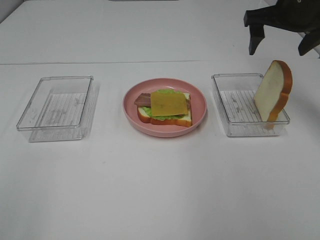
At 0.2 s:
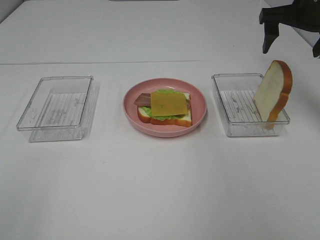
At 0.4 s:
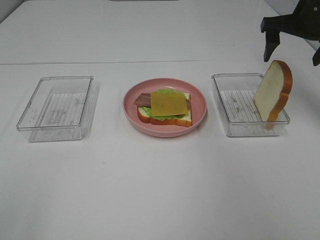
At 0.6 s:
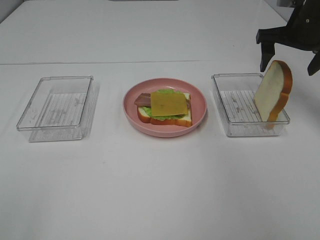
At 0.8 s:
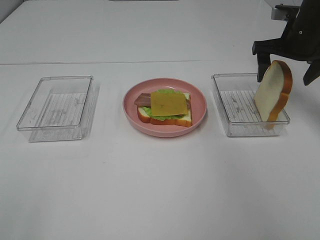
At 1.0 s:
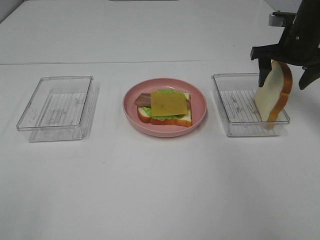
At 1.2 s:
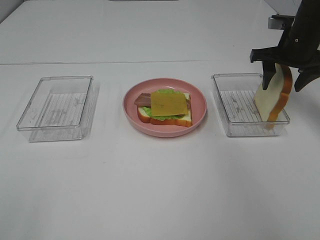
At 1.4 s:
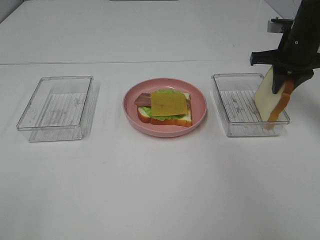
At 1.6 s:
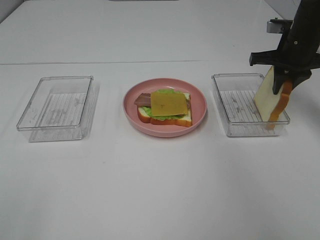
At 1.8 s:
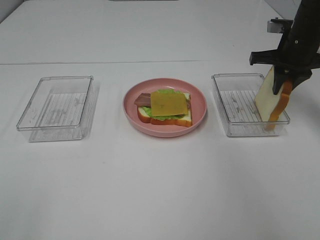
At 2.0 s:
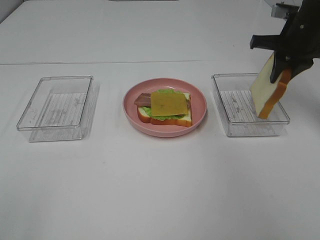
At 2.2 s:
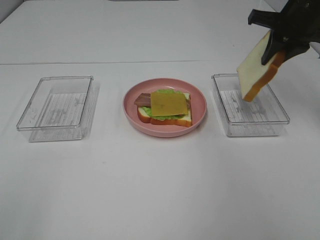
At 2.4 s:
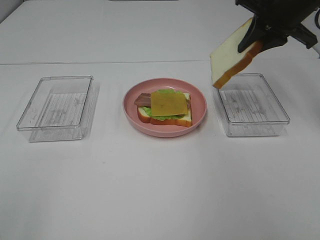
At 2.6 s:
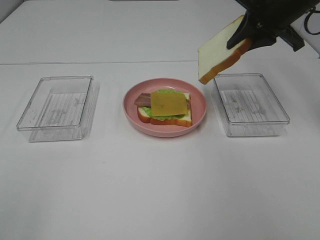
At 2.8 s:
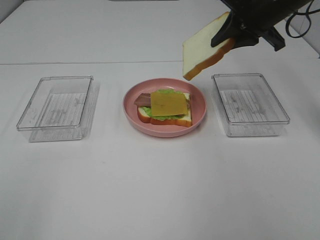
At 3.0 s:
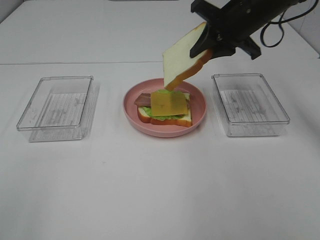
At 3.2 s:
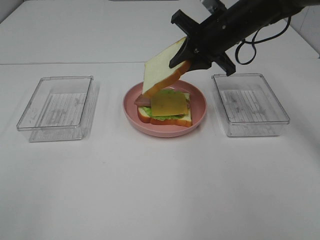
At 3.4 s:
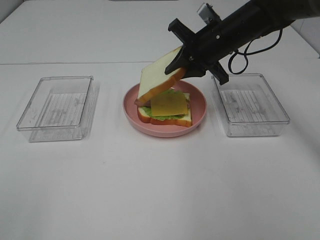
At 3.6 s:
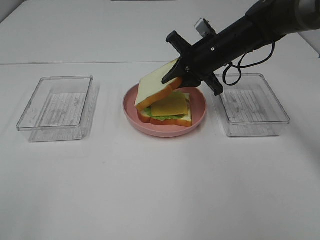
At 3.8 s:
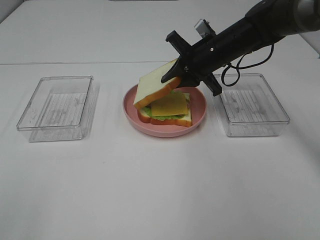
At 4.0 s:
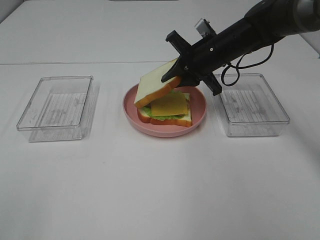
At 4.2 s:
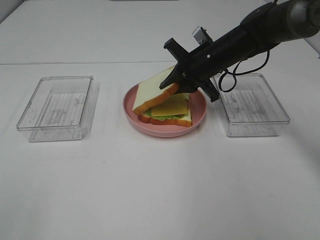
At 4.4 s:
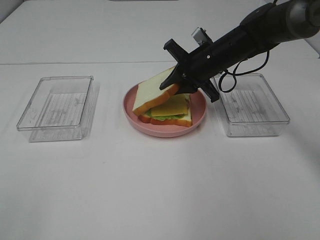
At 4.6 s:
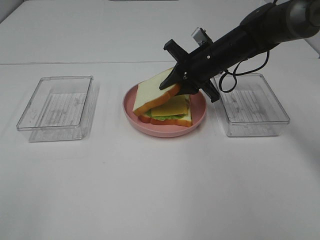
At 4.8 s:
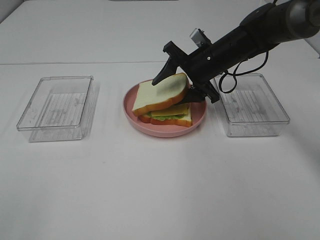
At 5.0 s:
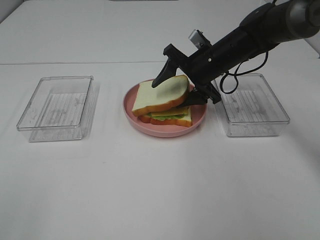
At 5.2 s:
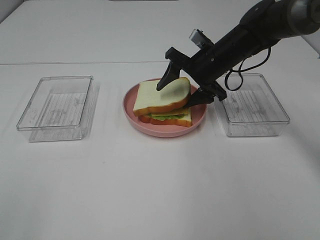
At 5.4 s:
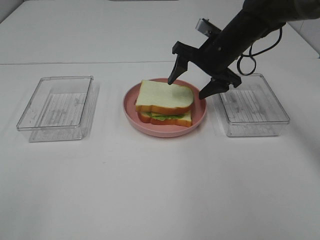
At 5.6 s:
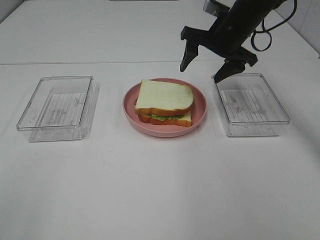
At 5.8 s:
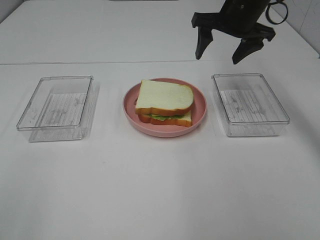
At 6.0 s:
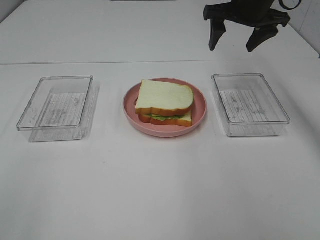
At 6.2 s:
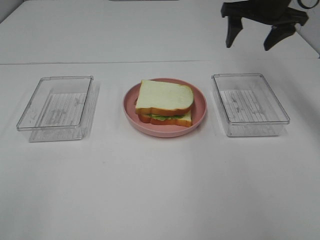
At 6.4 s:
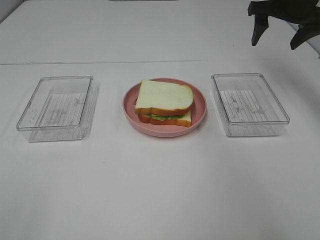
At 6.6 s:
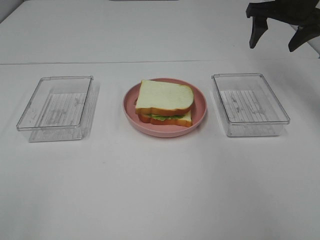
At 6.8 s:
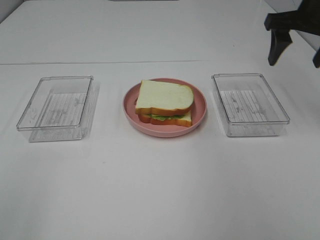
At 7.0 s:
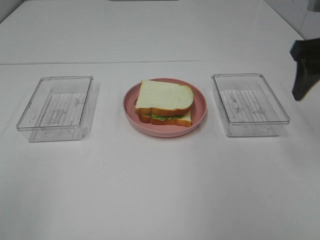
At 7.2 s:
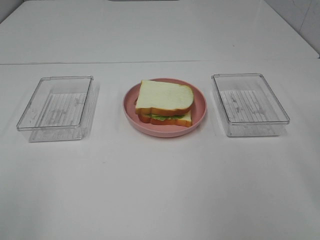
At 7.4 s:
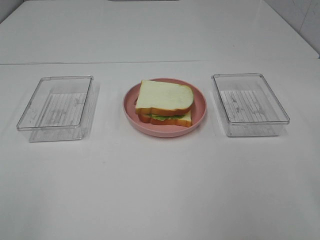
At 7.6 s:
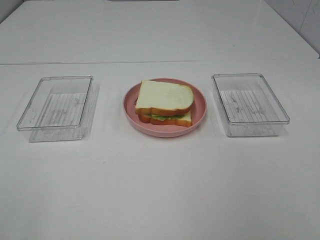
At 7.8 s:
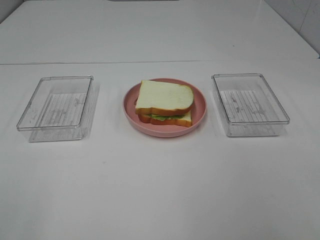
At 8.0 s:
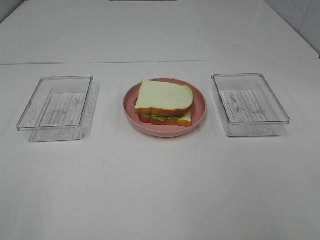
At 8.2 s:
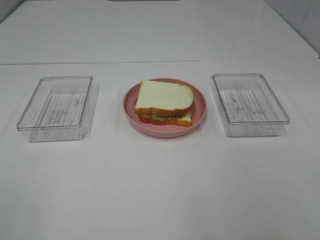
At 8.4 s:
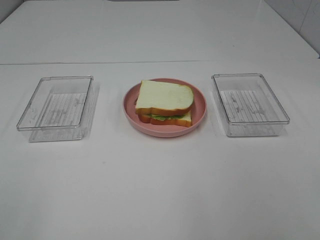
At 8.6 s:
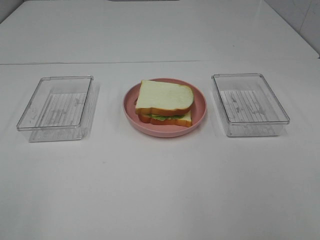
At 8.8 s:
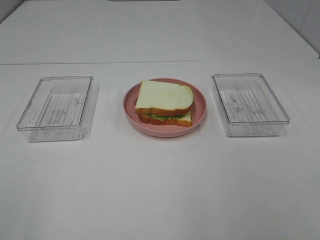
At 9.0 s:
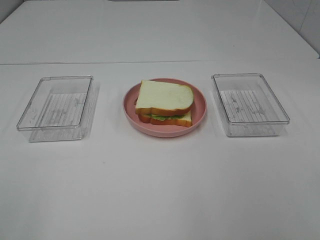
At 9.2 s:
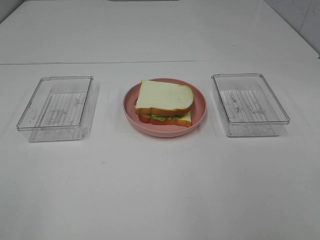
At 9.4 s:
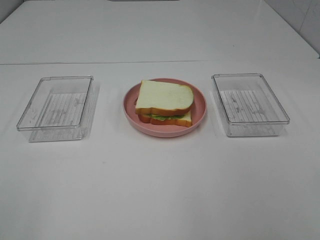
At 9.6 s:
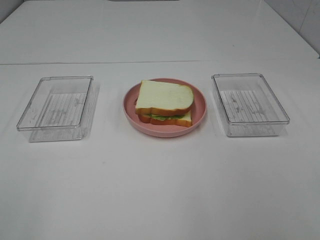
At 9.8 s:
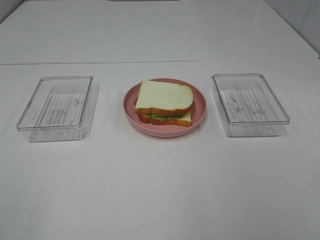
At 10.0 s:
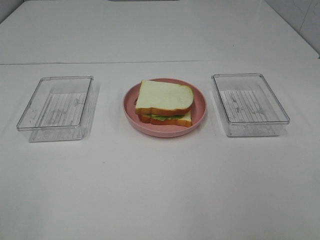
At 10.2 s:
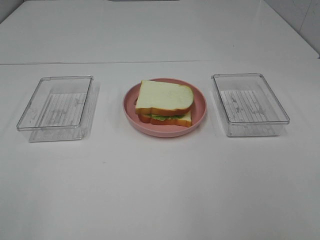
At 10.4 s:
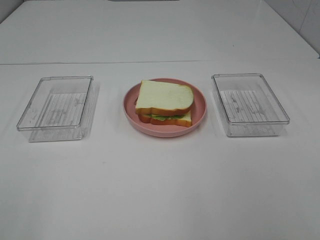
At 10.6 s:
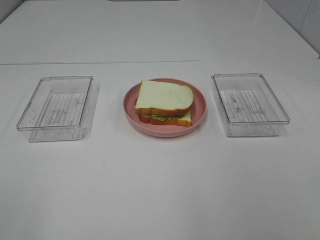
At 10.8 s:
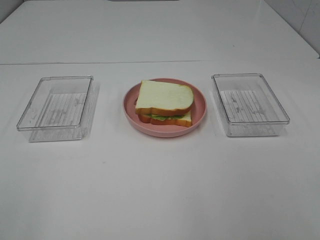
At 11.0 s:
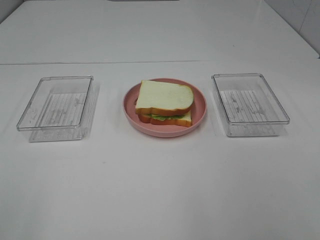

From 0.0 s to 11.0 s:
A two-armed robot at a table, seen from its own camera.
Task of the whole recording: Make sandwiches.
Step, from 0.0 s to 1.8 s: Right hand:grab the bread slice.
Step, from 2.0 s to 5.4 s: Right hand:place the bread slice on the cheese slice.
From 0.0 s to 1.6 s: The right gripper is displaced downward by about 10 cm, and closes up.
From 1.6 s to 3.2 s: The right gripper shifts roughly 15 cm to the left.
From 3.2 s to 4.8 s: The right gripper heads downward, covering approximately 5 cm, and opens up.
From 4.8 s to 6.2 s: The right gripper moves upward and to the right, some 15 cm.
From 6.2 s to 7.8 s: The right gripper travels backward by roughly 40 cm.
From 9.4 s to 11.0 s: Both grippers stay about where they are.

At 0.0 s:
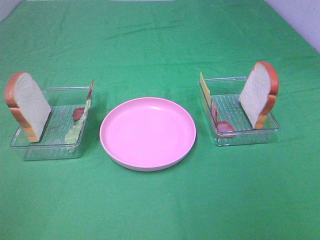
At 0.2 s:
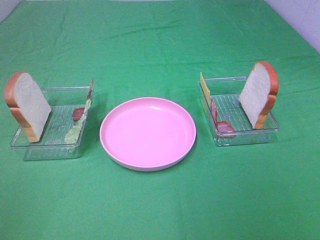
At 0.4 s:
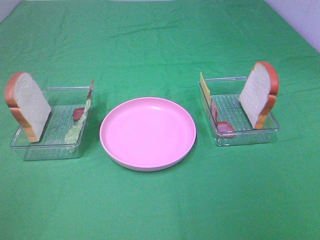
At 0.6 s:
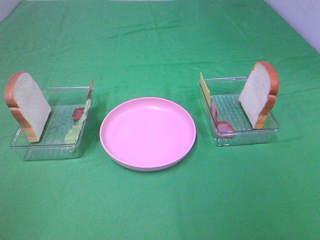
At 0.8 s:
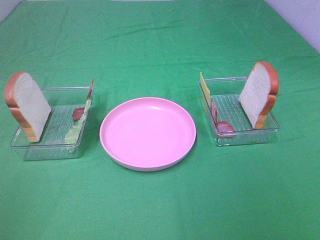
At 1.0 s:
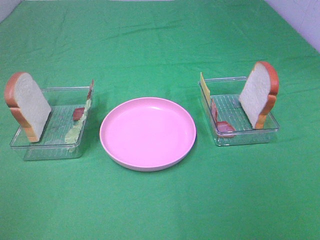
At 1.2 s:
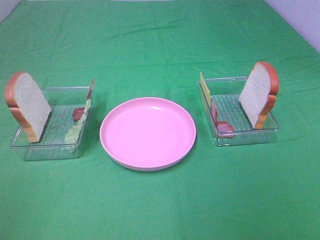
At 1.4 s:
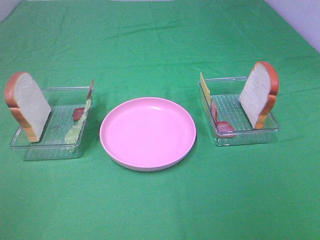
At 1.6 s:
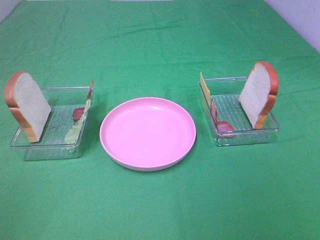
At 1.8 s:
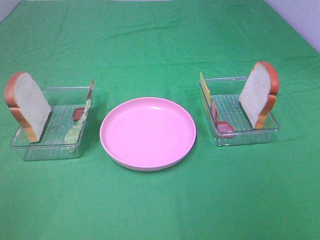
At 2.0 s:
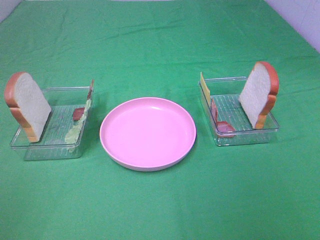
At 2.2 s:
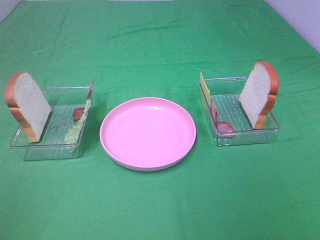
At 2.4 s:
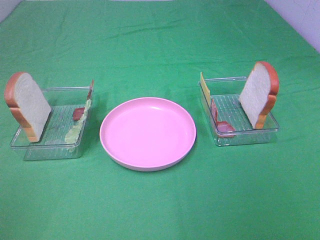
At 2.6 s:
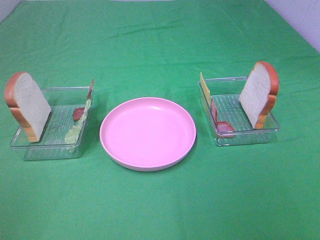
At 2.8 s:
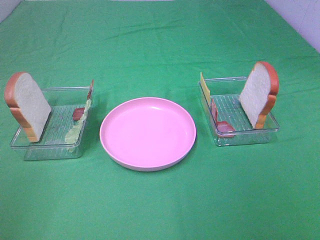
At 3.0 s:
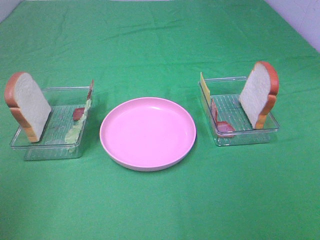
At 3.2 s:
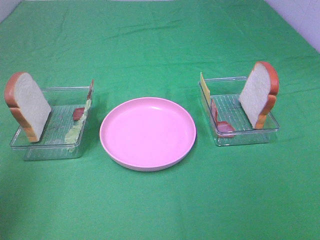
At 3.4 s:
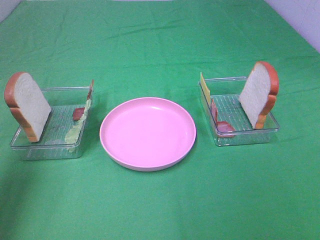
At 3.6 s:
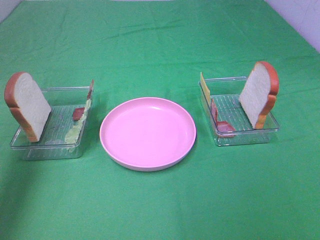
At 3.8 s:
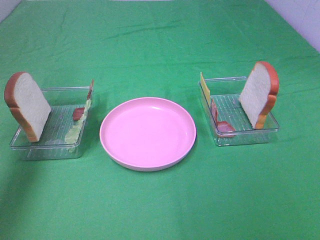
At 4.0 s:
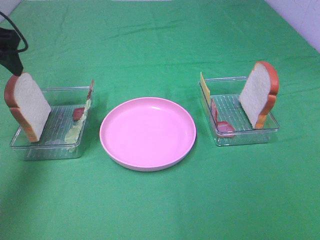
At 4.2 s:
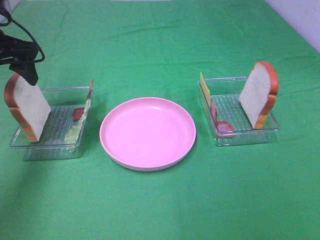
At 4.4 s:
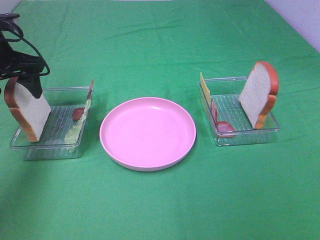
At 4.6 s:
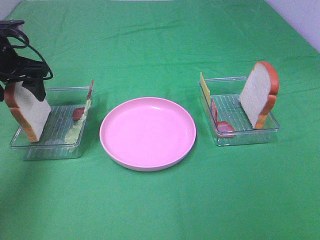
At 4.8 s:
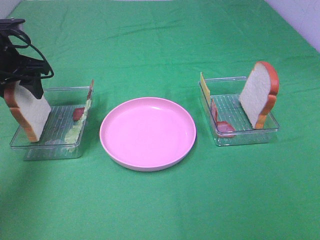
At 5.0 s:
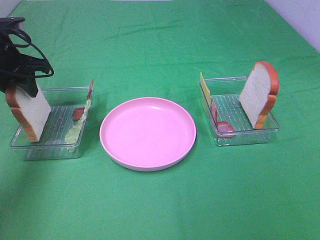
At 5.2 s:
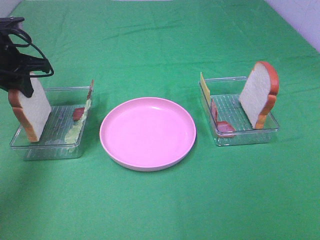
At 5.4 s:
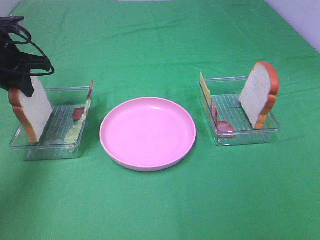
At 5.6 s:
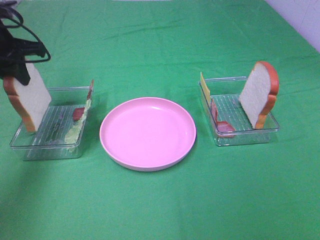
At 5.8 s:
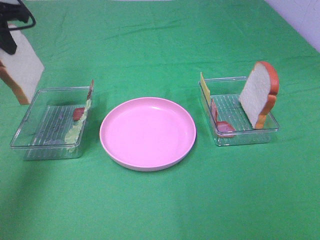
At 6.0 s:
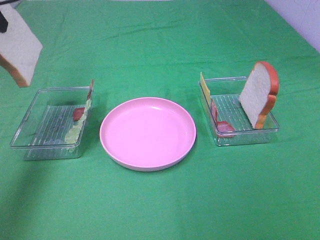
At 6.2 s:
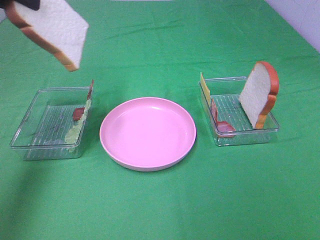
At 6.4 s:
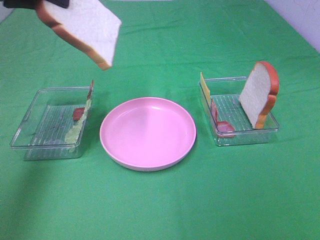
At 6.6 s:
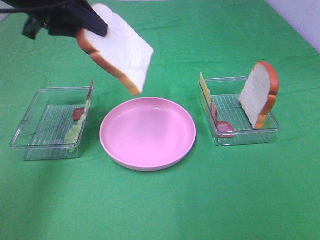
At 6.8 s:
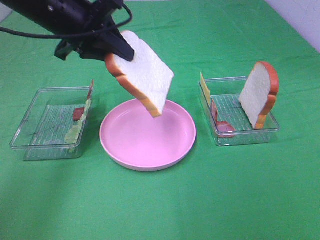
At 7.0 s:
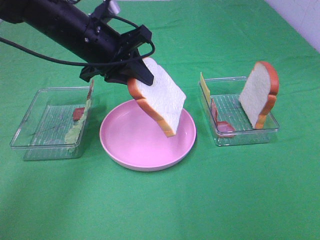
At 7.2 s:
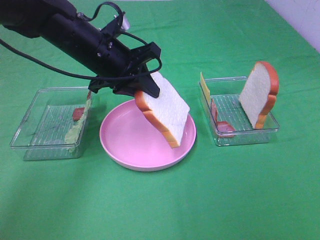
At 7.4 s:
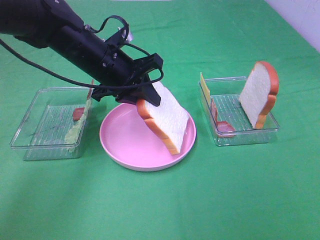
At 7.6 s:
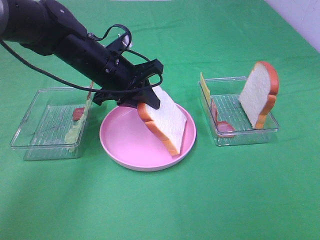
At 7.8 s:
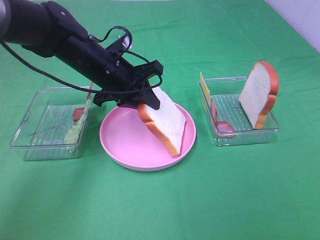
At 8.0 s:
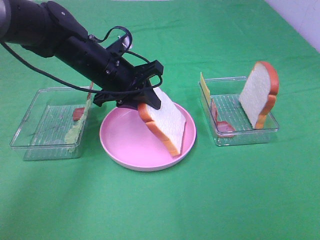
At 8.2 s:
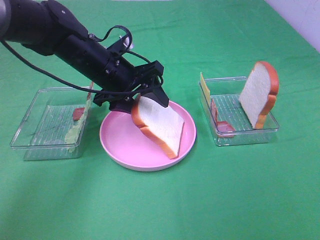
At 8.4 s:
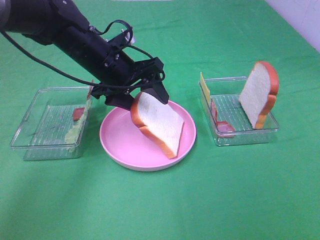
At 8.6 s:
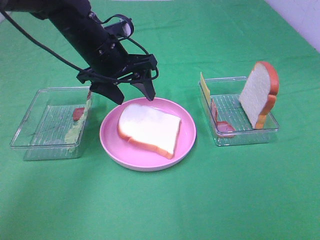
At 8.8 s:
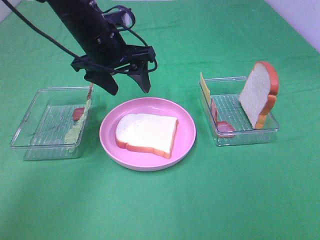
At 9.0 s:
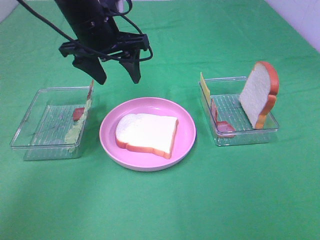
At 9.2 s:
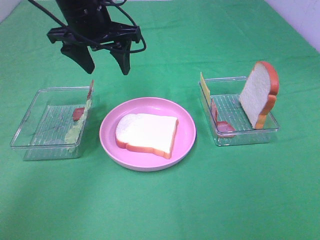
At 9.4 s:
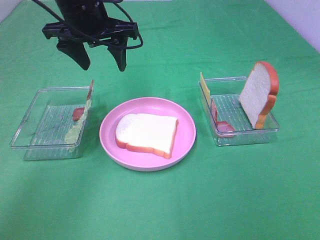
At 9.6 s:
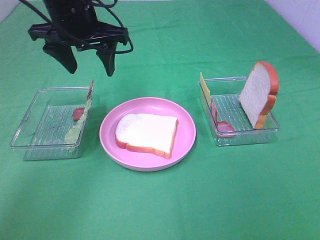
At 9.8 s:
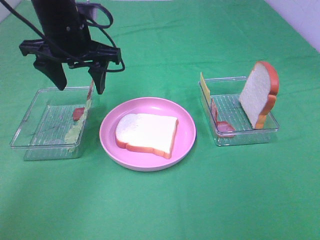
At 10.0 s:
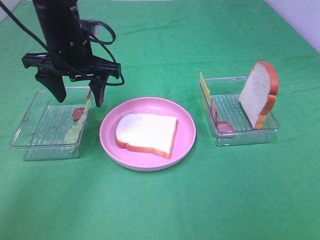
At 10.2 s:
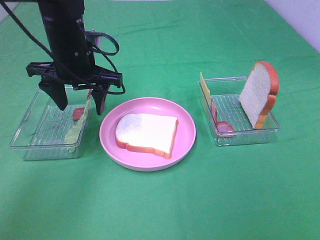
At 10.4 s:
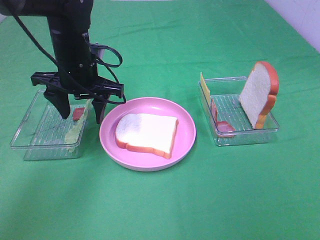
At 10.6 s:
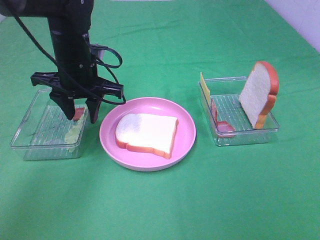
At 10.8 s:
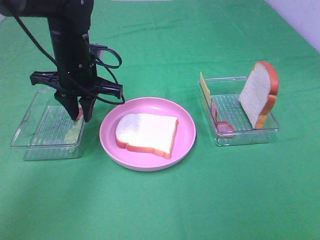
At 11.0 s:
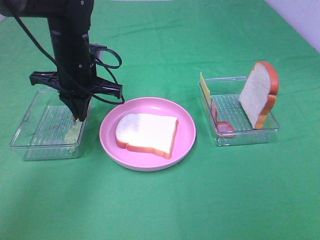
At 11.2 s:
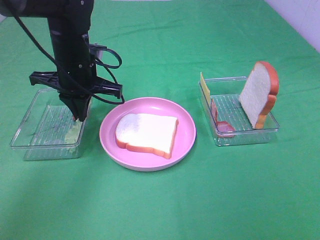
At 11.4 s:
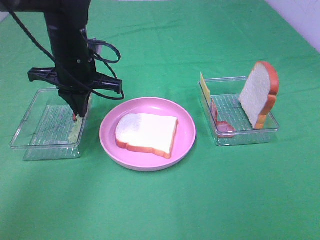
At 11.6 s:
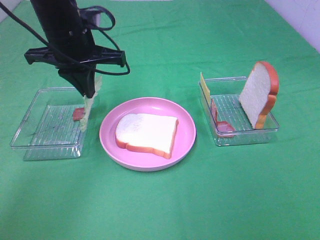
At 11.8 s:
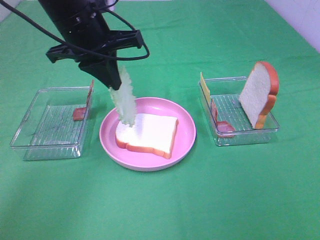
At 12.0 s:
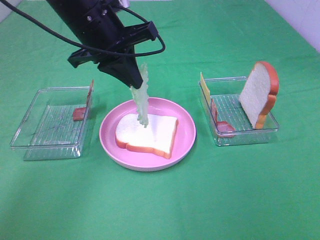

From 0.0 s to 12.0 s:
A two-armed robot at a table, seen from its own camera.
Task of the whole recording: Make sandwiches.
Step, from 0.0 s to 5.0 s: Left hand:grab the bread slice.
Step, from 5.2 s to 8.6 s: Left hand:place the bread slice on the plate.
Step, from 8.8 s to 11.2 s: Left hand:grab the lettuce slice.
From 0.0 s to 1.6 s: Both grippers stay put.
From 3.0 s to 4.4 s: The left gripper goes roughly 35 cm forward and downward.
From 4.4 s to 6.0 s: The left gripper heads upward, covering roughly 15 cm, and closes.
From 6.0 s to 7.6 s: The left gripper heads to the right and downward, covering about 25 cm.
From 7.6 s to 9.0 s: The left gripper goes roughly 10 cm upward, and opens.
From 9.0 s to 10.4 s: The left gripper goes roughly 5 cm downward.
From 10.4 s to 12.0 s: The left gripper heads upward, covering roughly 10 cm, and closes its fingers.
